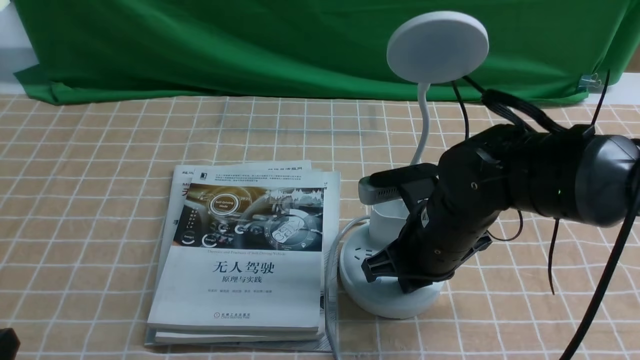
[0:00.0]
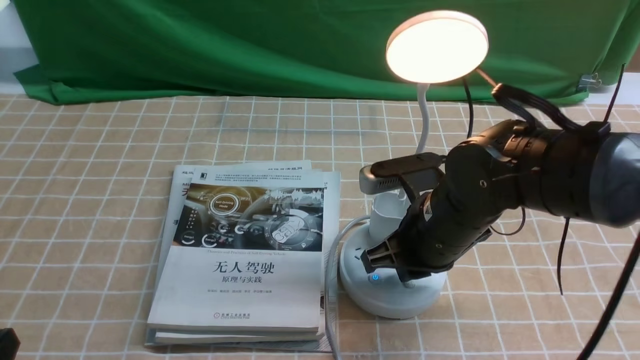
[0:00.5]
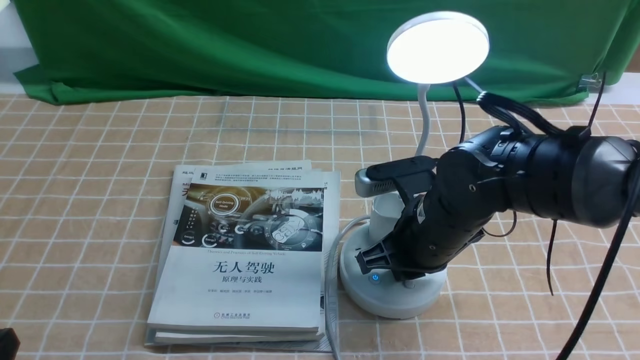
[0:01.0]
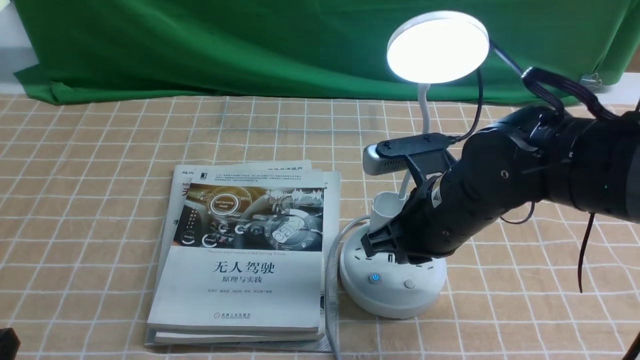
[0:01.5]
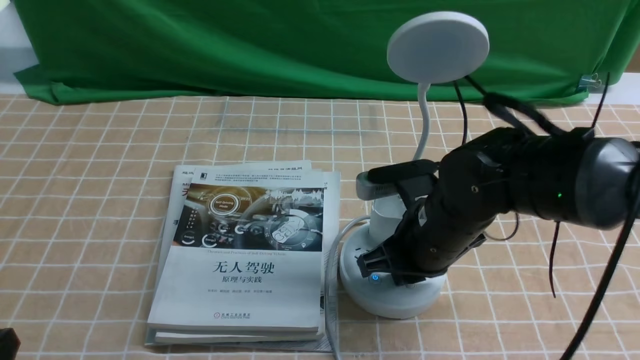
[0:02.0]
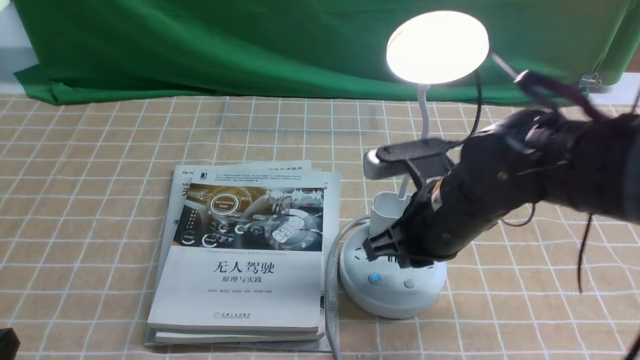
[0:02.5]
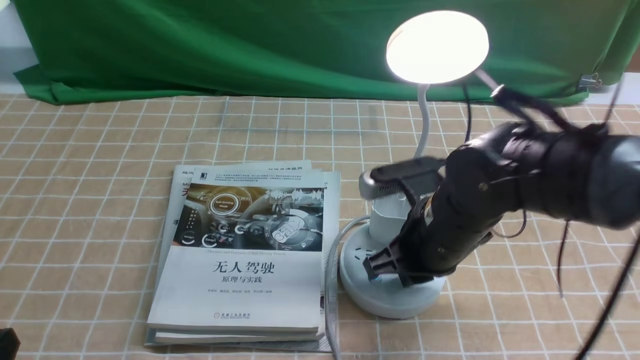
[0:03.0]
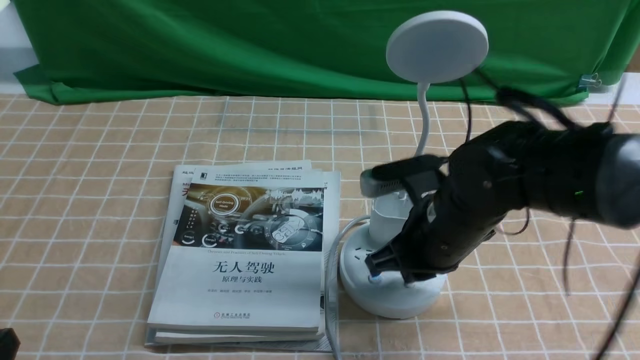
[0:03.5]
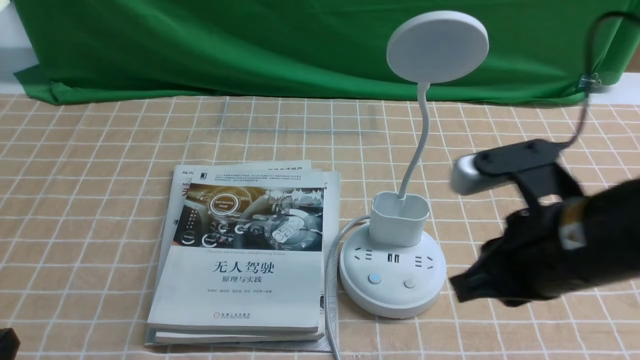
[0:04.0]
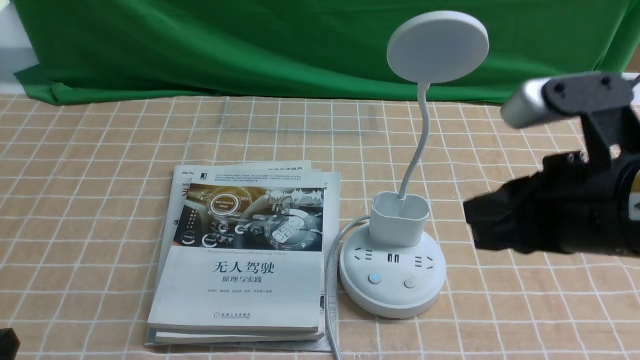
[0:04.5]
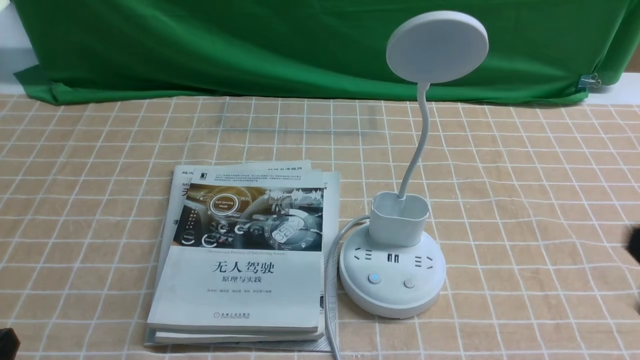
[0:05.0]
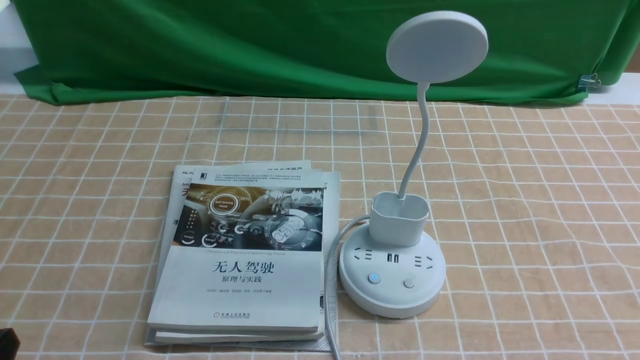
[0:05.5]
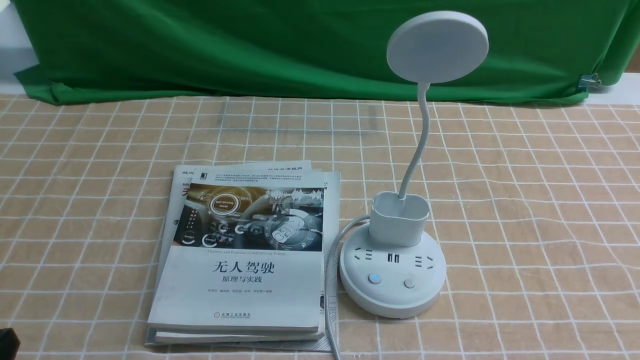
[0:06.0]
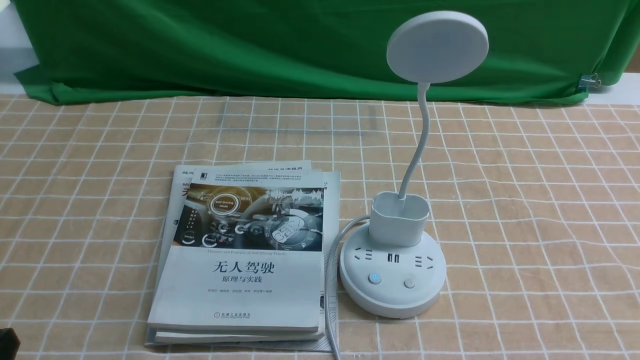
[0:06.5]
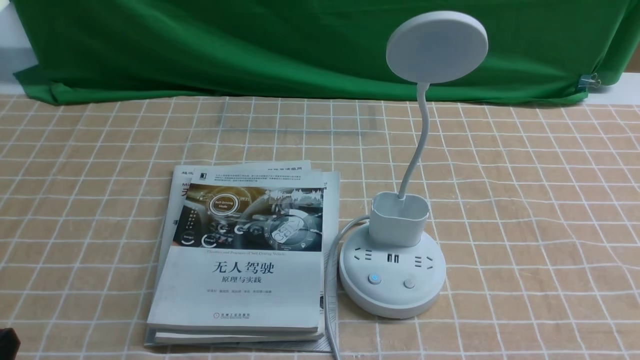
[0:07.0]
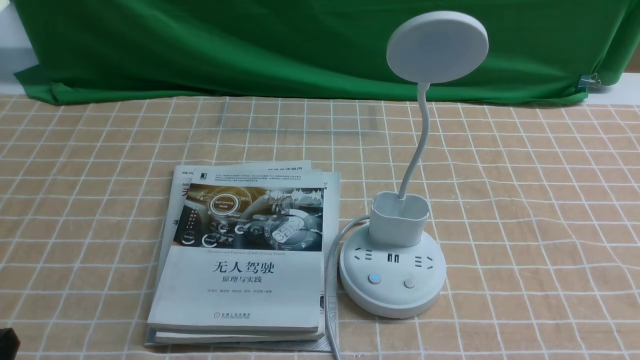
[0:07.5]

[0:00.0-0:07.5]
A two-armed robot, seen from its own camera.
Task of the whole recording: turn off the desk lamp on the light coffee tablecloth by hand.
Step, 0:00.0 to 0:03.5: use the right arm to press the button switch on the lamp holder.
0:00.0 to 0:02.0: The grippers make only small movements.
0:02.0 to 0:04.0: The right gripper goes approximately 15 cm upward, backward and to the right.
0:04.0 to 0:05.5: The right gripper shifts about 20 cm backward, to the right and downward.
